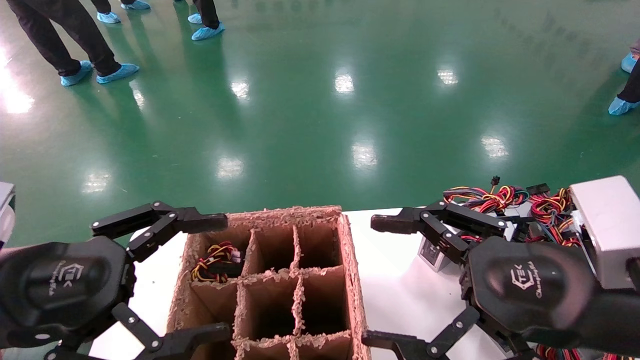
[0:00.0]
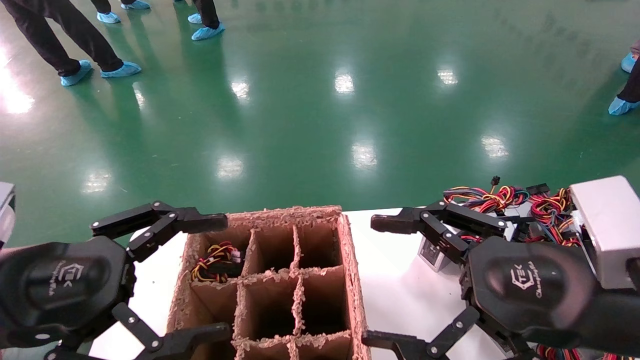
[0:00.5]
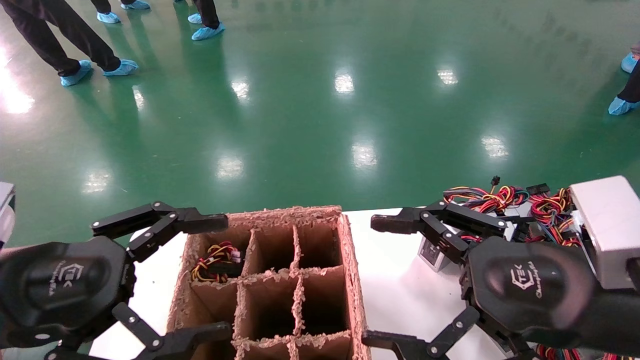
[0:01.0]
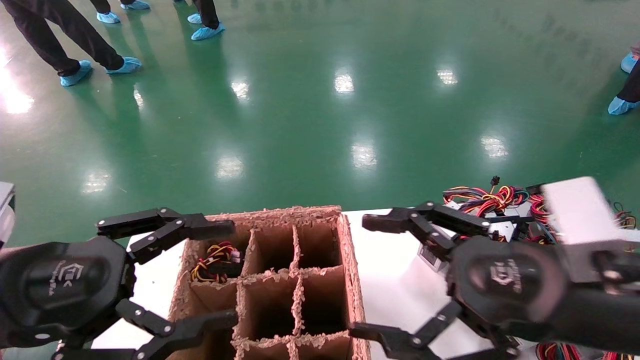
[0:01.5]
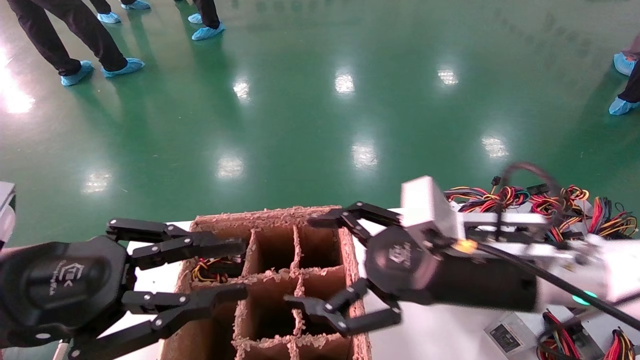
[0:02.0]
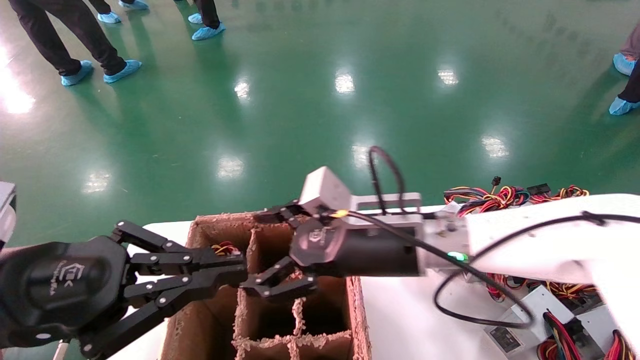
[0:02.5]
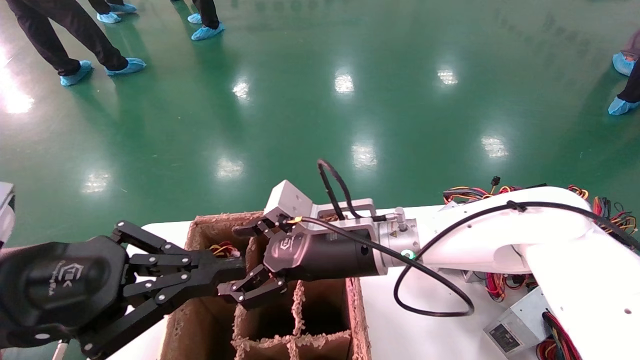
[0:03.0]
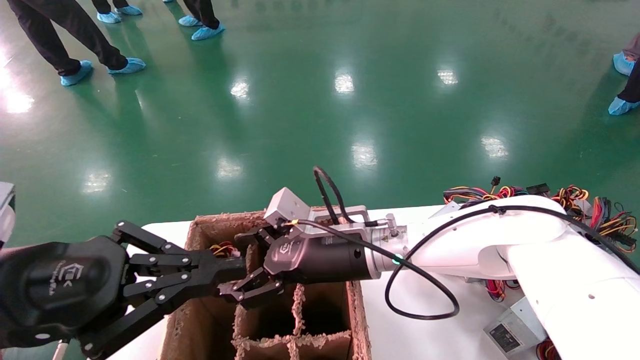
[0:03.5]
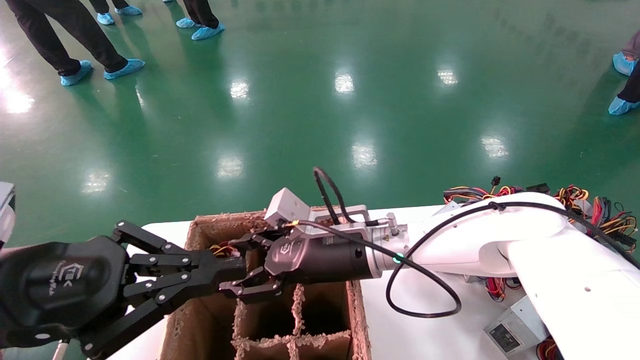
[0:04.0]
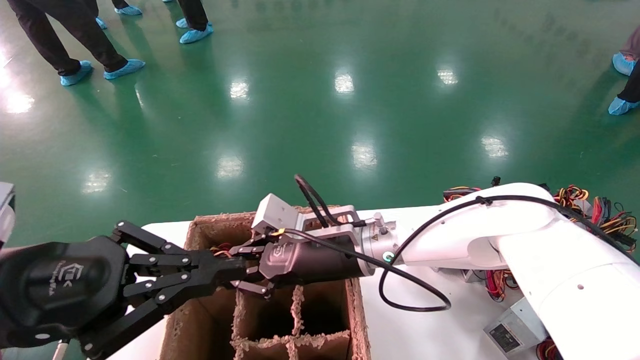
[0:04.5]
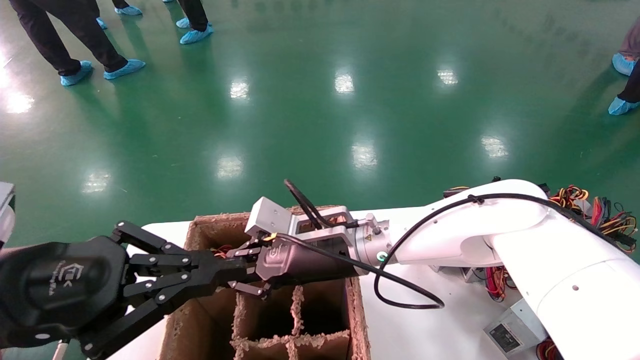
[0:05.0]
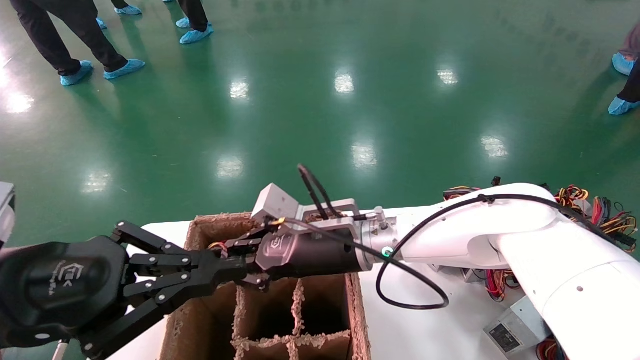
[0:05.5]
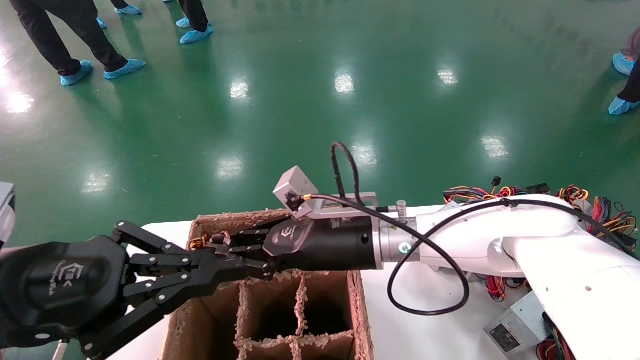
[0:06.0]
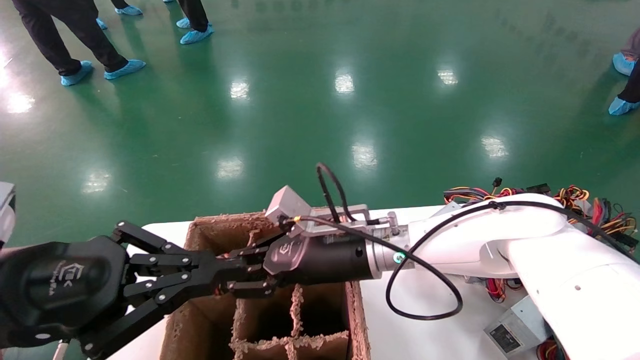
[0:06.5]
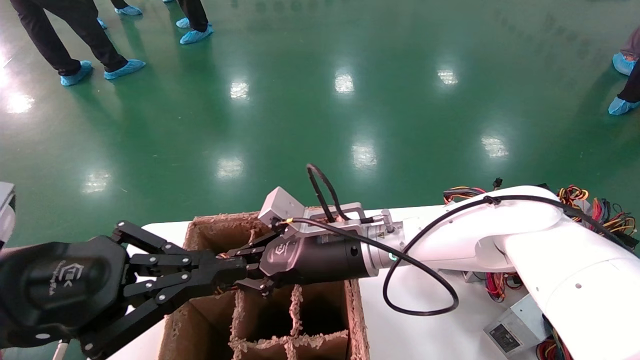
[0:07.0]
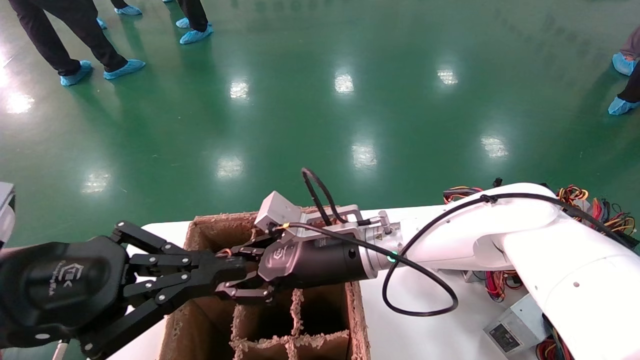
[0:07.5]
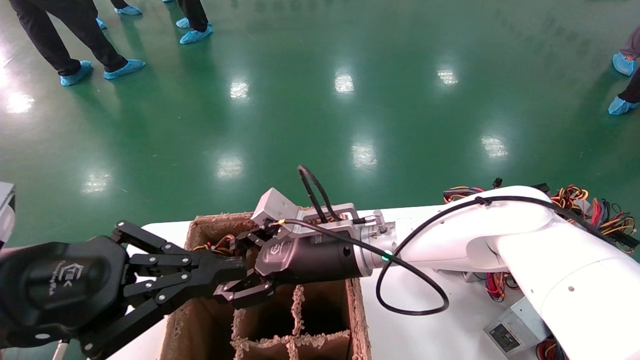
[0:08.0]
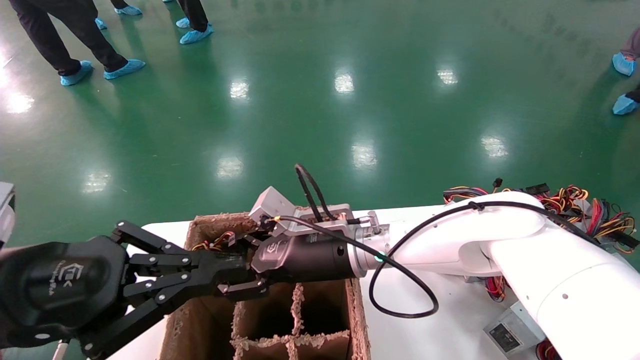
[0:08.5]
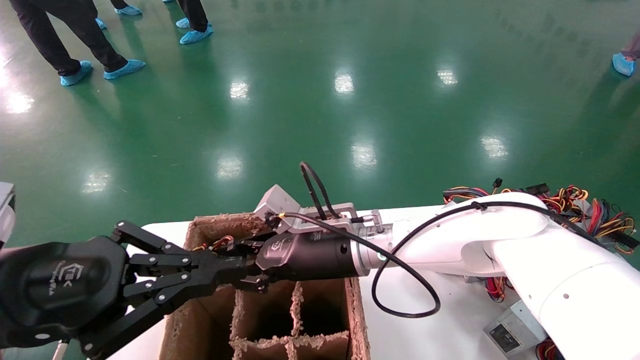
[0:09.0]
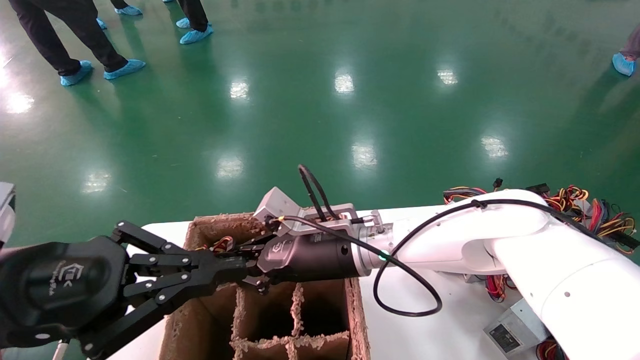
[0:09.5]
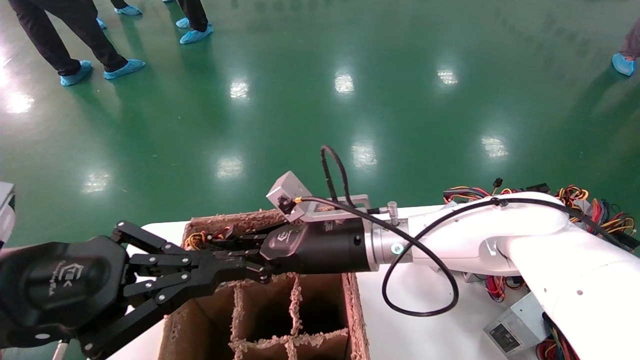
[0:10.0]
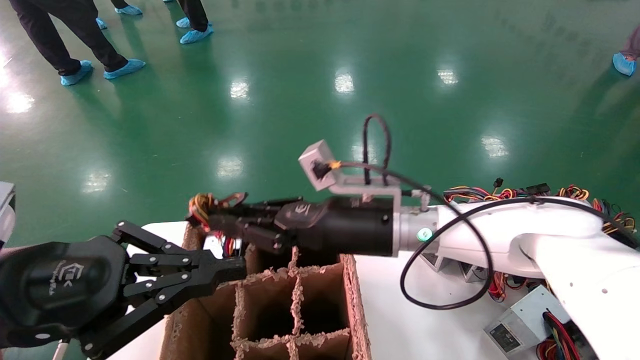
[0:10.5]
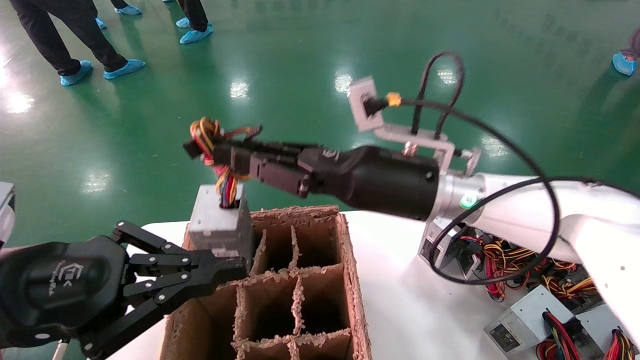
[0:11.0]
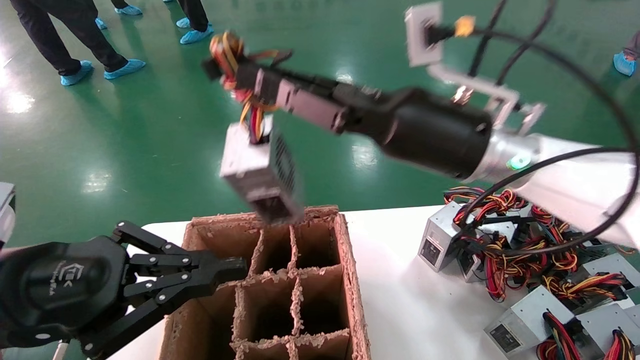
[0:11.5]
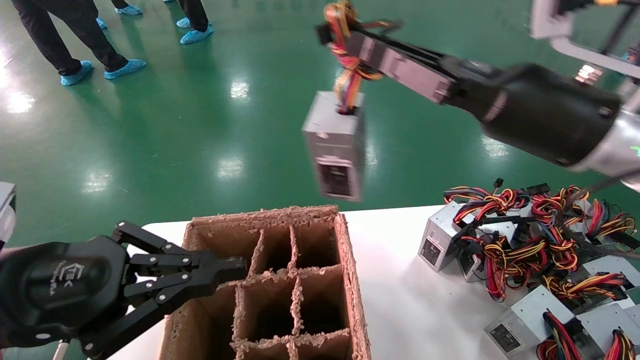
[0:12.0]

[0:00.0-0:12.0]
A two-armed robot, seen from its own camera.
Step, 0:02.0 to 0:09.5: Grab the main unit power supply from the containment box.
0:00.0 to 0:02.0: The right gripper moves forward and to the left, some 10 cm. Meanwhile the left gripper closes.
0:02.0 to 0:04.0: The left gripper closes. The right gripper moves to the left and forward, about 15 cm.
0:04.0 to 0:06.0: The right gripper closes.
0:06.0 to 0:08.0: The right gripper opens its fingers.
0:08.0 to 0:10.0: The right gripper closes up.
0:10.0 to 0:12.0: The right gripper goes about 25 cm to the right, upward and backward.

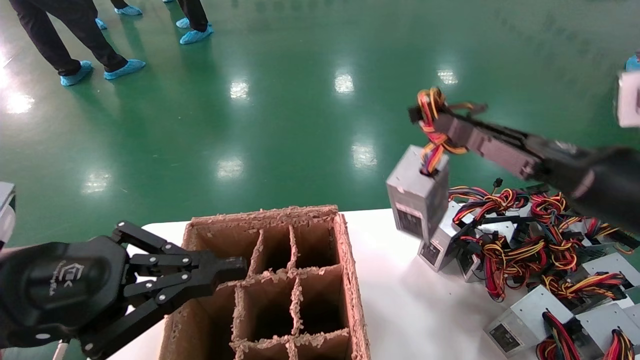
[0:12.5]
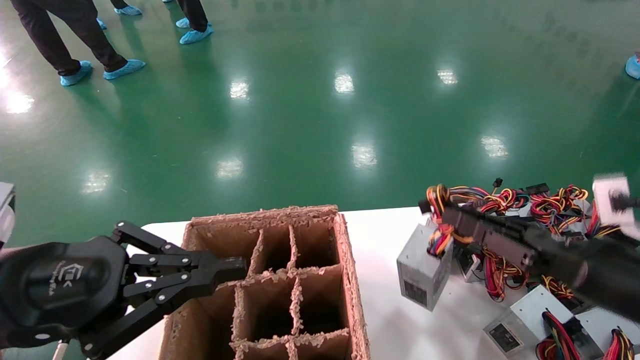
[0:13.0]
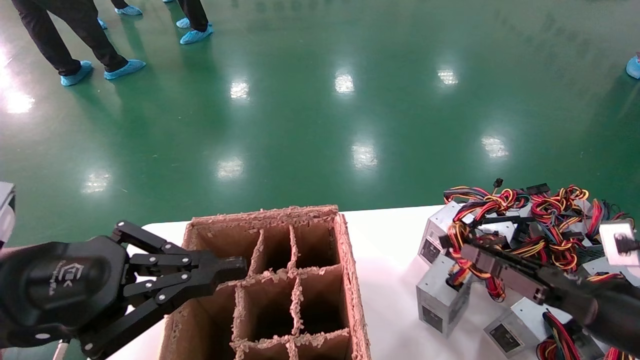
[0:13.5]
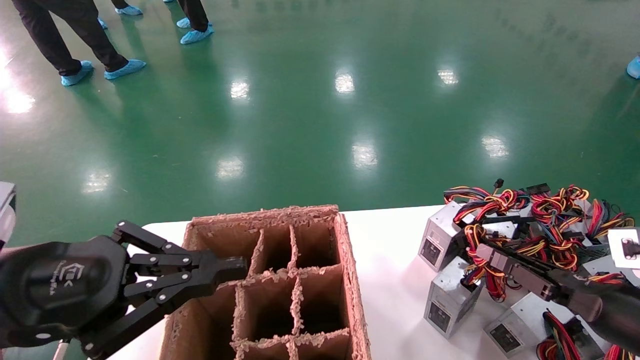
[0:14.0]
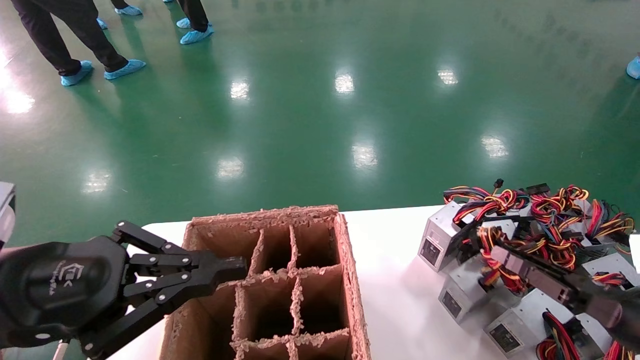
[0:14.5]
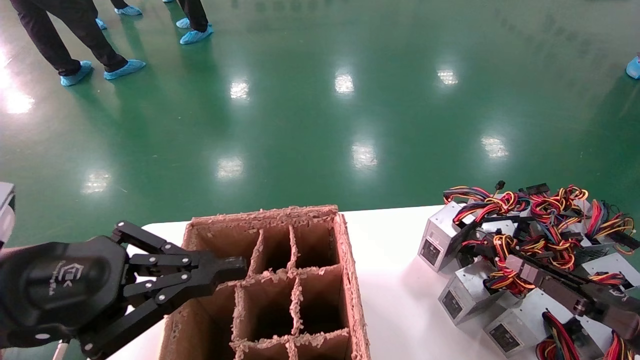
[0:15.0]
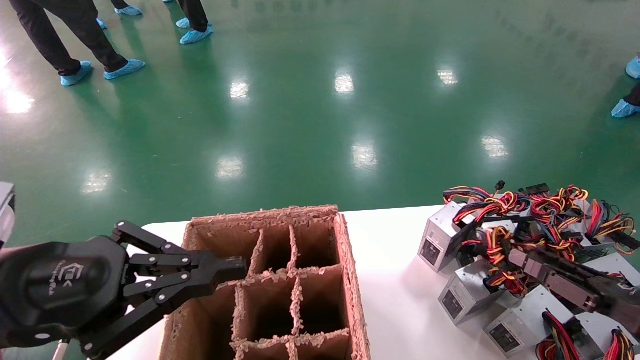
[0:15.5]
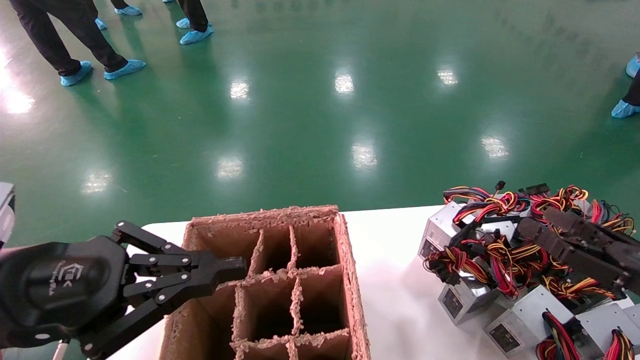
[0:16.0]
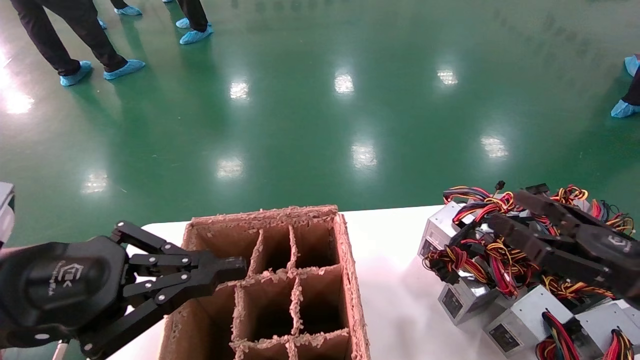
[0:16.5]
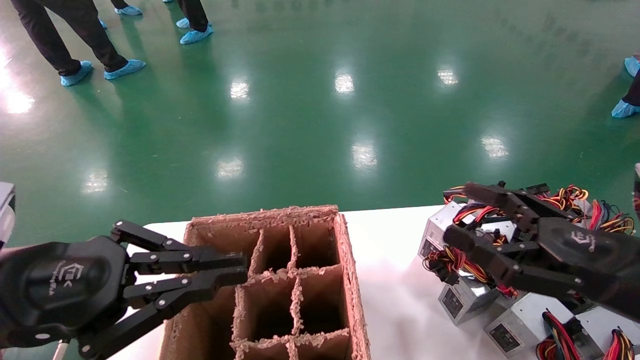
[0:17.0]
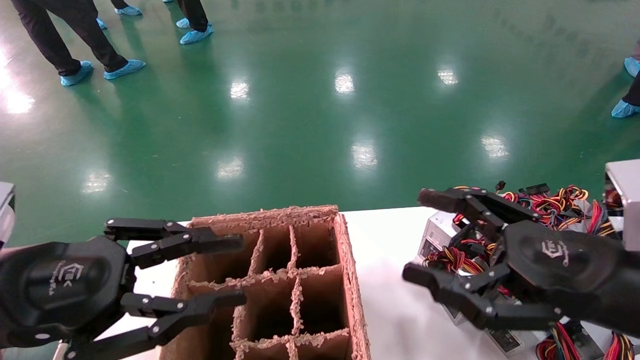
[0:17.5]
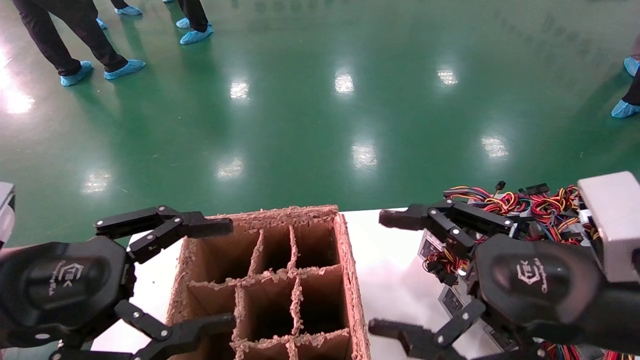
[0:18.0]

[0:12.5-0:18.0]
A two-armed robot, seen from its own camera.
Step, 0:12.5 to 0:15.0: Place the main unit power supply in the designated area.
0:12.5 to 0:14.5: The right gripper heads downward and to the right, covering some 20 cm.
0:14.5 to 0:16.0: The right gripper moves some 5 cm, and opens.
0:16.0 to 0:18.0: The right gripper travels to the left and upward by about 20 cm, and opens up, while the left gripper opens up.

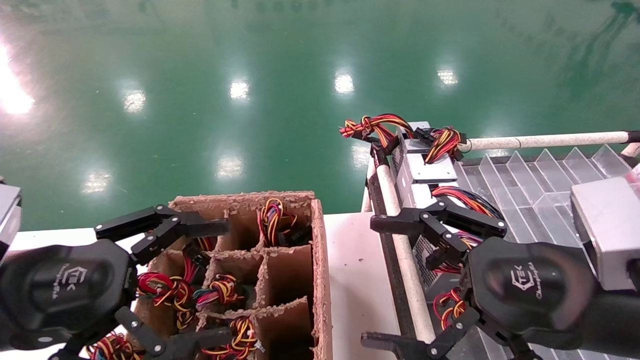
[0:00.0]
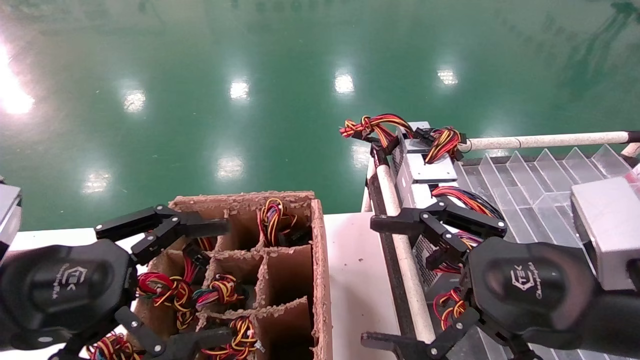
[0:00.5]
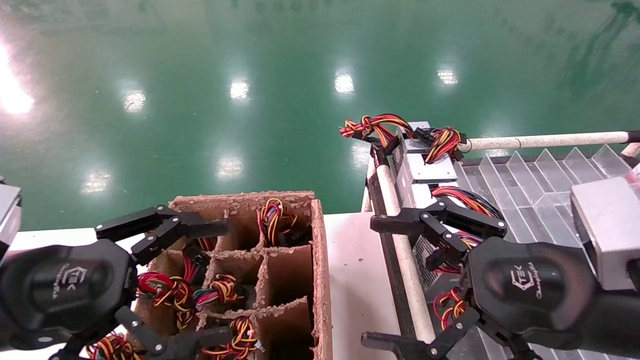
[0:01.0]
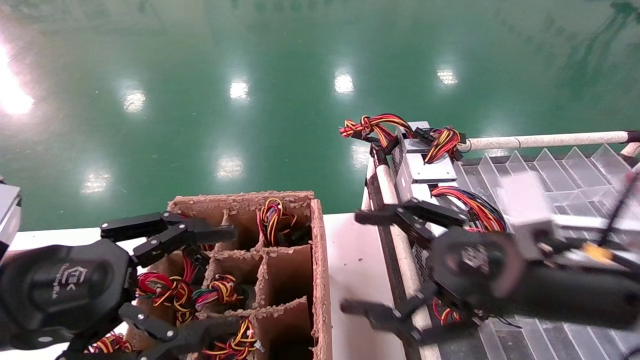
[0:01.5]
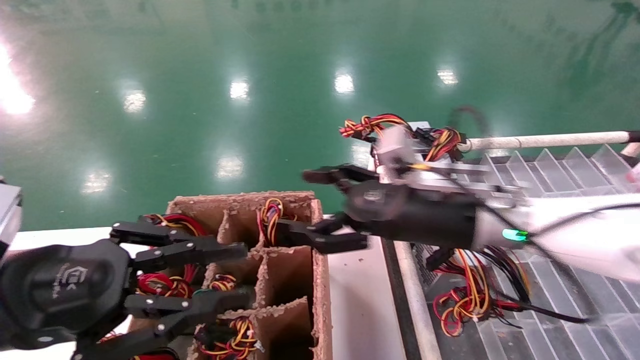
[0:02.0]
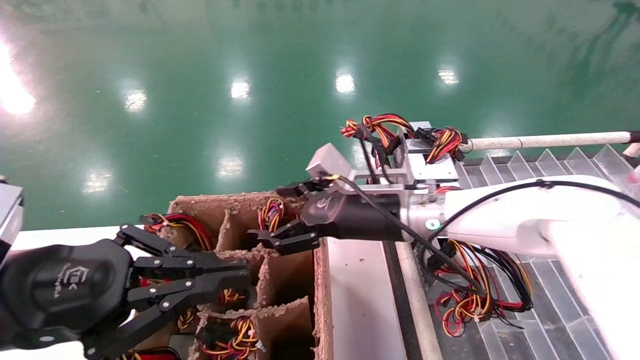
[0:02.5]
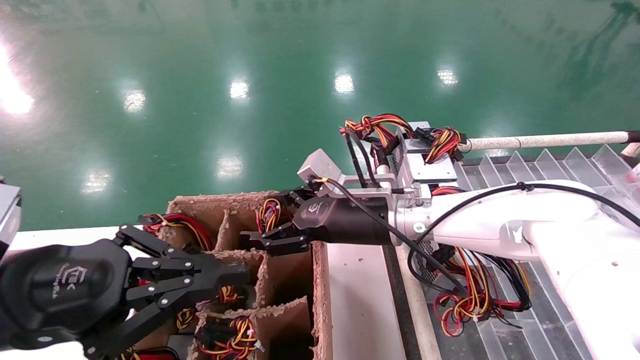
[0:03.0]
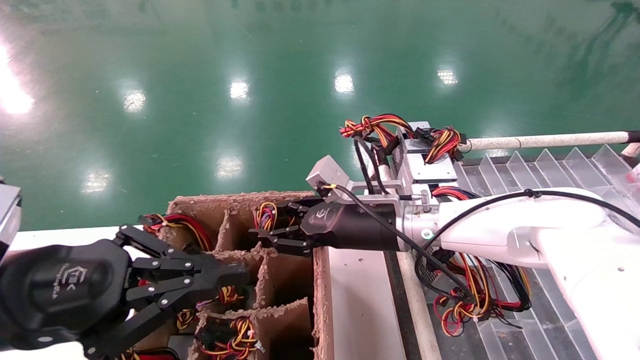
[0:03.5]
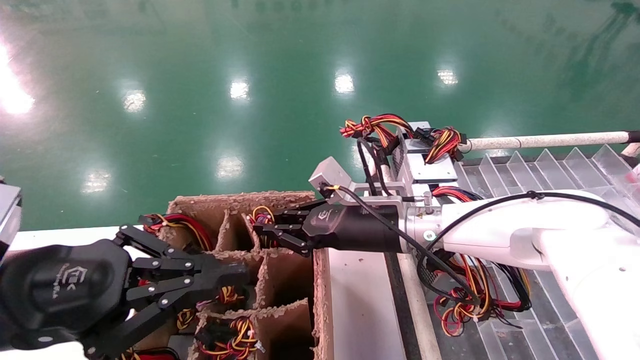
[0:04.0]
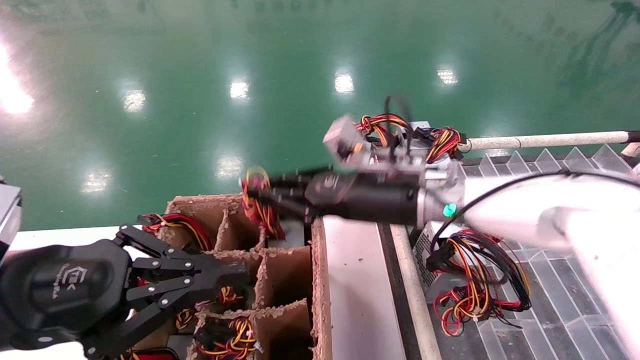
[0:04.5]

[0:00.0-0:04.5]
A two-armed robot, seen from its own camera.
Step, 0:01.5 to 0:04.0: Grab the main unit power supply from the containment box.
0:00.0 to 0:02.0: The left gripper closes up, while the right gripper heads forward and to the left, covering approximately 20 cm.
0:02.0 to 0:04.5: The right gripper closes up. Meanwhile the left gripper closes up.
